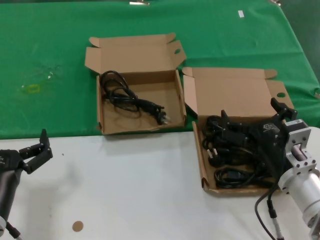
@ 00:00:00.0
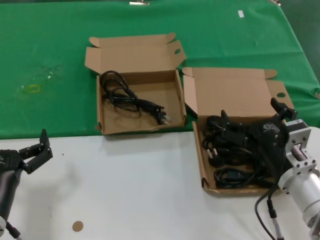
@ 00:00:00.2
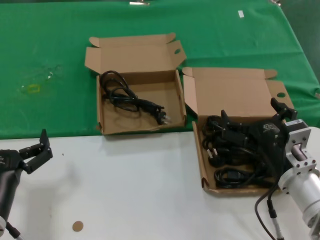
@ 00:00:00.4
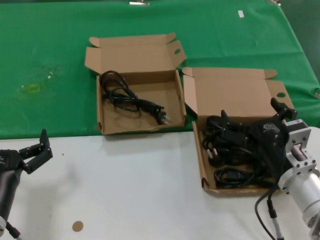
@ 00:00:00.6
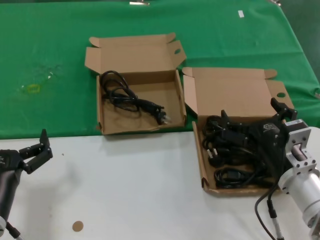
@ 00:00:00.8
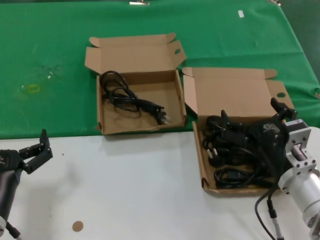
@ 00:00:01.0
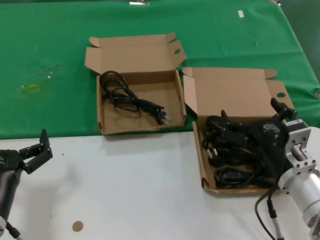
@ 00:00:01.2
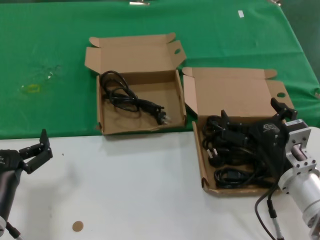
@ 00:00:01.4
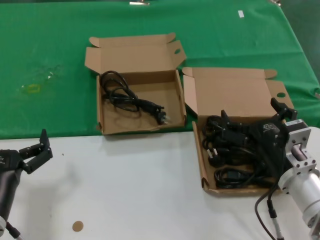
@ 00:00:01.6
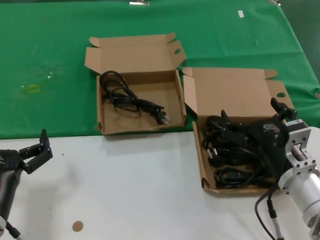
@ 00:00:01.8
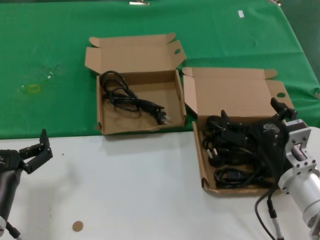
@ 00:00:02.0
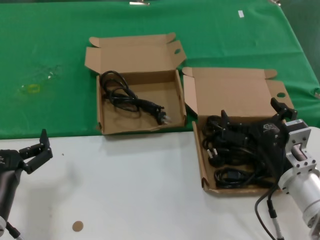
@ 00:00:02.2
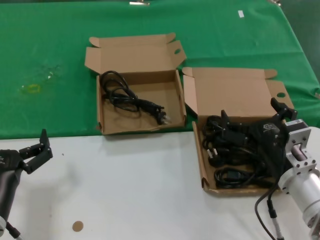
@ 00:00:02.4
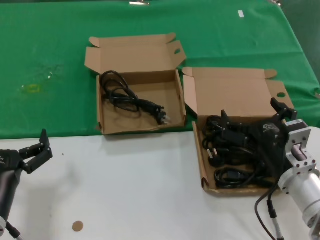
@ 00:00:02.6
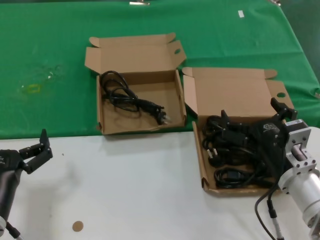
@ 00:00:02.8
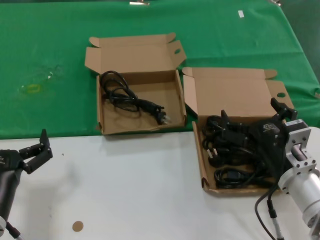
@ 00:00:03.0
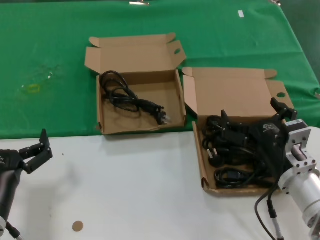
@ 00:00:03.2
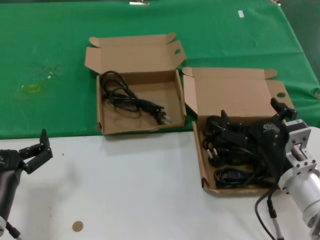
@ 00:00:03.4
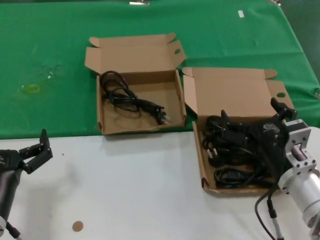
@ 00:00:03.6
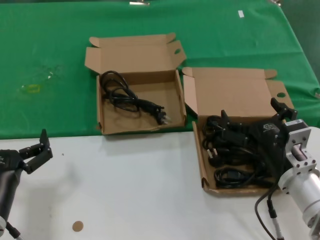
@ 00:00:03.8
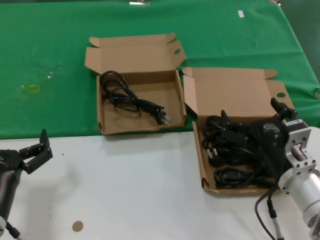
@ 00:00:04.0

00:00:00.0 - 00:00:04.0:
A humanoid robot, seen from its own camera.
Task of the whole recording: take the parts from the box containing them and put them into an empty box.
00:00:00.0 - 00:00:04.0: Neither hand changes place.
